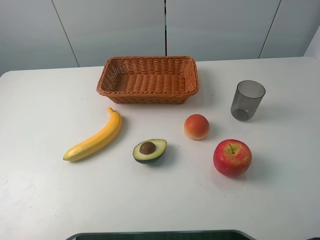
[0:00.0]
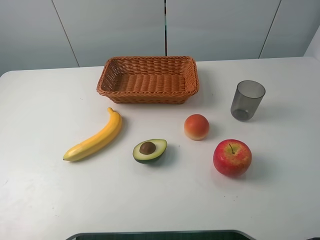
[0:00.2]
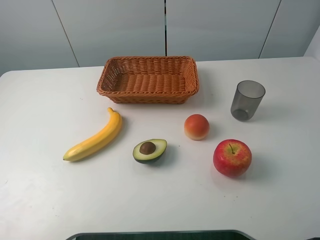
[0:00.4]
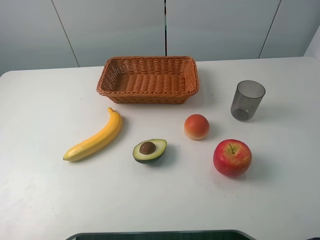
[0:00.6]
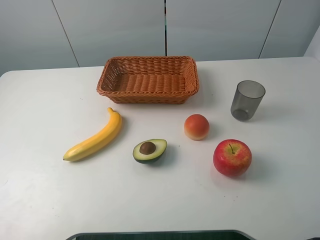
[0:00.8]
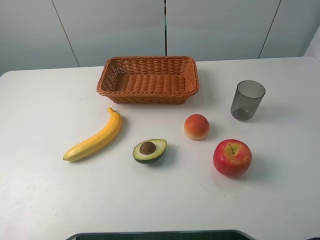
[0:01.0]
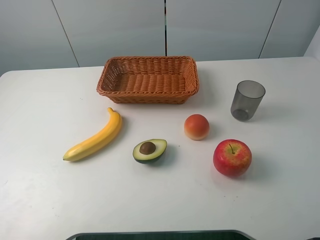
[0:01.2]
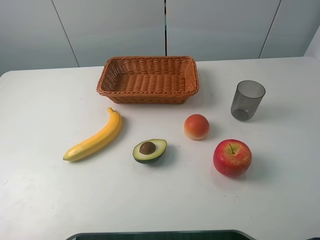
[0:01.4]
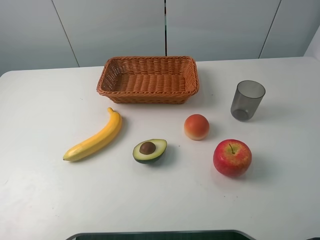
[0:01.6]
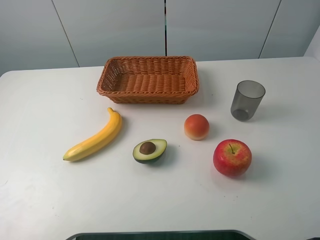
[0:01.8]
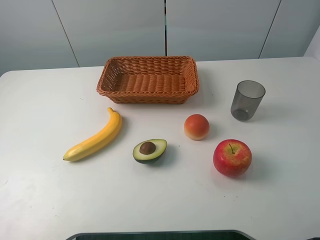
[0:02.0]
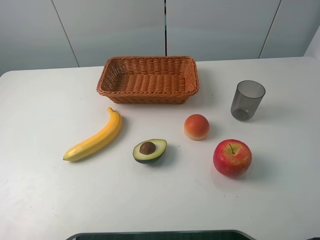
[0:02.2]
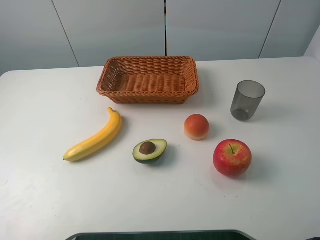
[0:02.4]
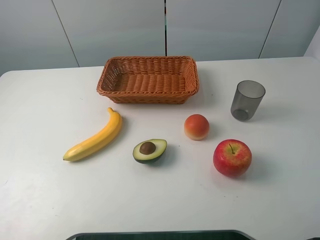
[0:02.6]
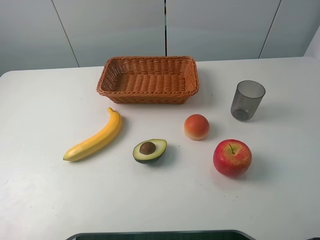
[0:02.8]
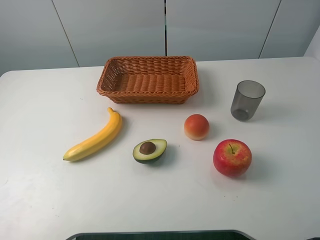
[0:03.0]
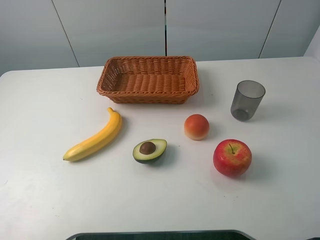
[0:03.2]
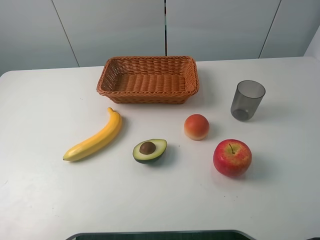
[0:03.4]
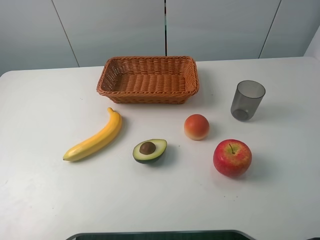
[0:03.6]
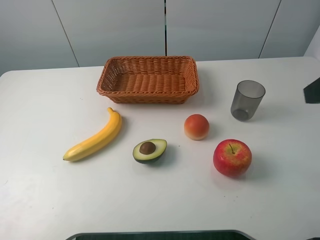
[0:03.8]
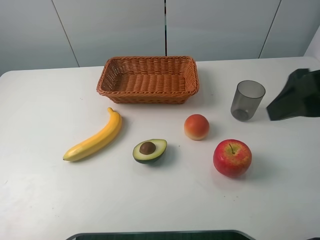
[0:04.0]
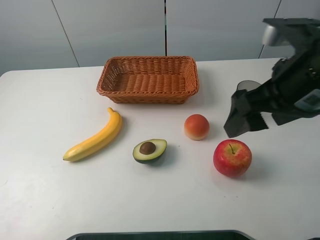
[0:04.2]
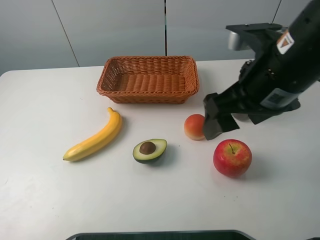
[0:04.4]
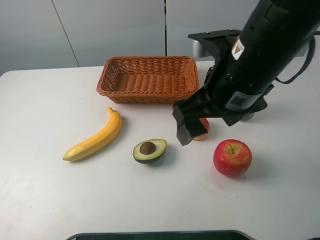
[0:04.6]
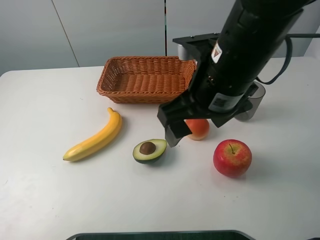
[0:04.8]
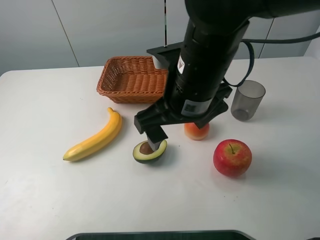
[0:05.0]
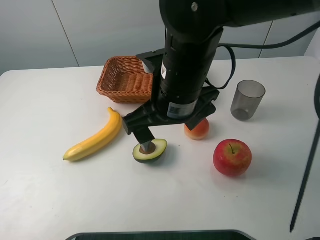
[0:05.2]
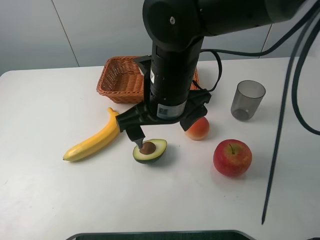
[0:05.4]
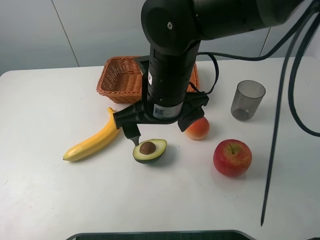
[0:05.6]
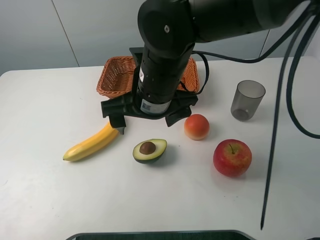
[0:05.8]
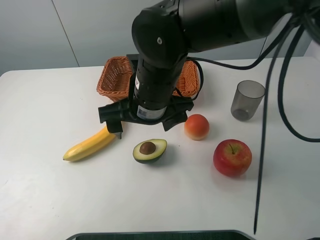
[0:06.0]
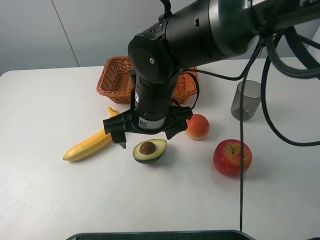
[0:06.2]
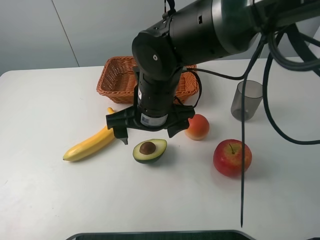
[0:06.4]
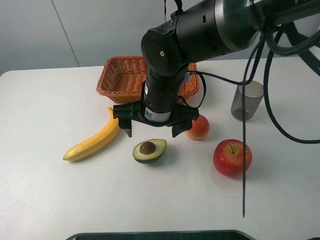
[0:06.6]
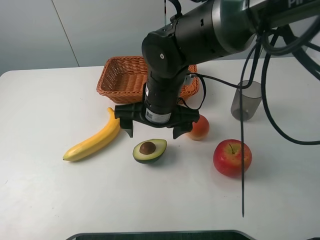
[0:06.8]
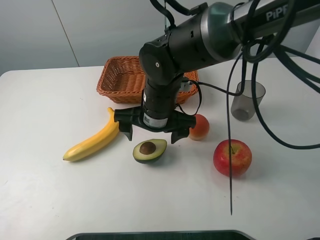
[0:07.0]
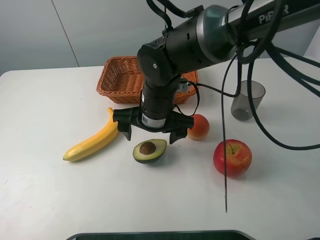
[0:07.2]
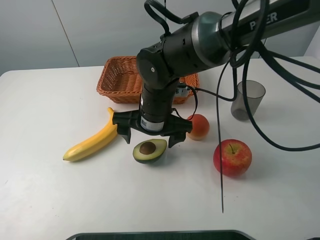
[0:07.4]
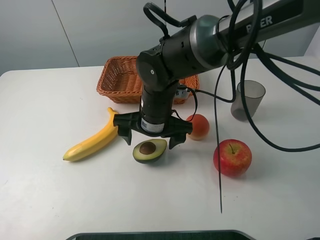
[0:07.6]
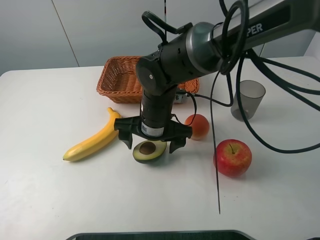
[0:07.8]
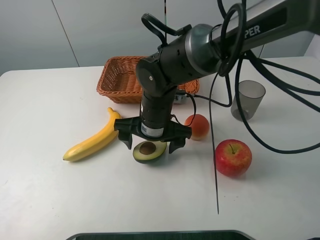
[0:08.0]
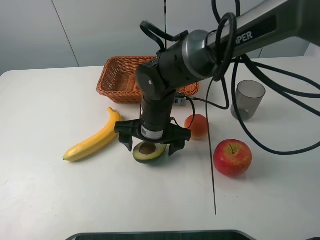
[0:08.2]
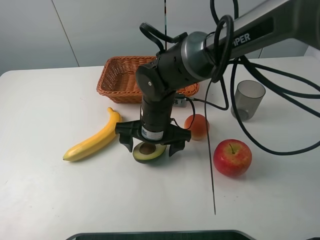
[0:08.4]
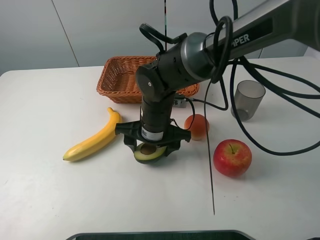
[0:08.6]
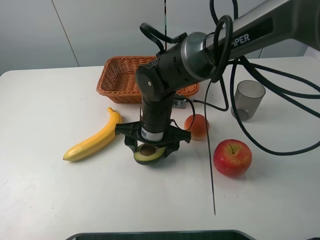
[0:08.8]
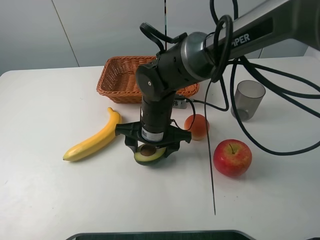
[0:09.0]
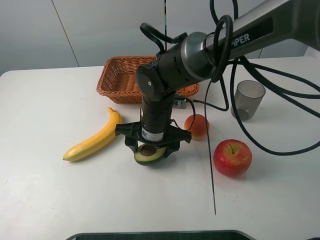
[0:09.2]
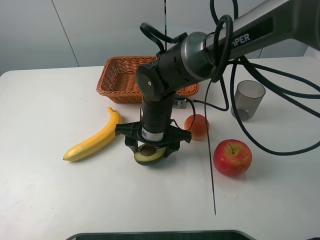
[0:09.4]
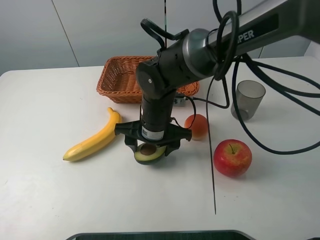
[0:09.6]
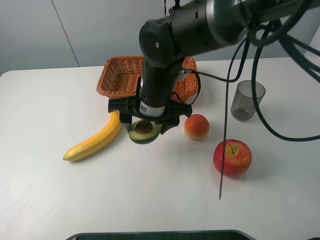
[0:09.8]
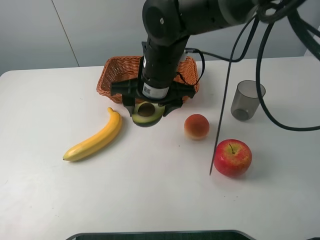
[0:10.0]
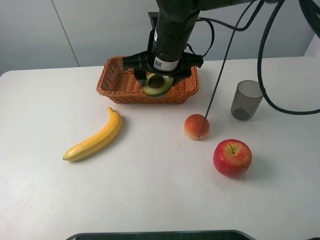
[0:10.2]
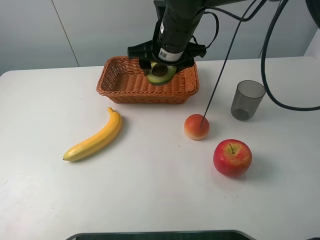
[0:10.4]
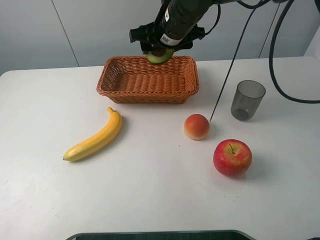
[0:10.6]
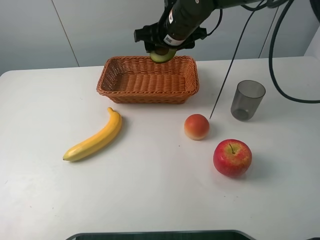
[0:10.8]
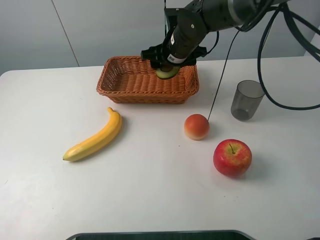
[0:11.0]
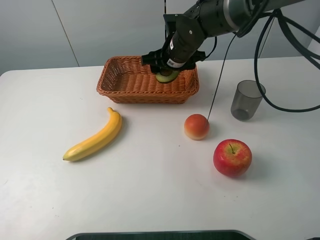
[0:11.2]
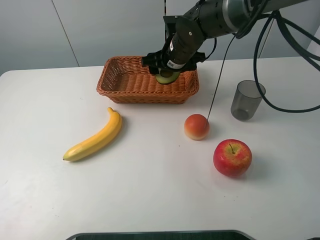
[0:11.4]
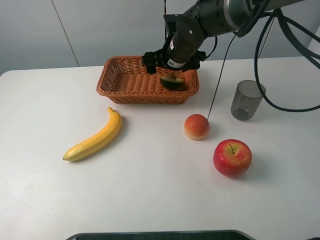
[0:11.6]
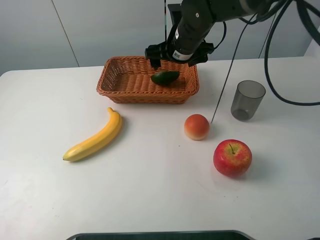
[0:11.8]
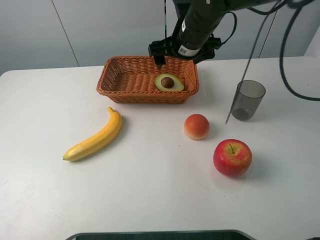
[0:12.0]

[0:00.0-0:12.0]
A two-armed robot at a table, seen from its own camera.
Task of the whole recording: randomly pick up an item from the table and put it in the basket.
Step, 0.0 to 9.0 s: Grasp the avocado with the right gripper.
Step, 9.2 to 12.0 s: Place the avocado into the basket with the right gripper.
0.0 to 1.6 s: Both grippers stay about where they are.
3.0 to 4.4 s: The right gripper moves forward, to the left and downward, about 25 cm.
4.4 to 6.0 s: The right gripper heads to the left and downward, covering approximately 15 cm.
6.0 to 7.6 s: The right gripper shifts some 5 cm downward.
7.6 to 9.0 s: The right gripper closes up.
9.0 to 10.4 s: The right gripper moves upward and forward, roughly 15 cm.
10.4 to 12.0 s: The right gripper opens up.

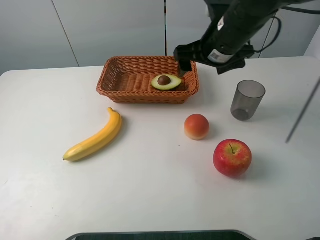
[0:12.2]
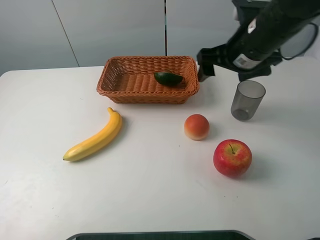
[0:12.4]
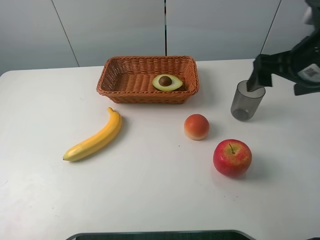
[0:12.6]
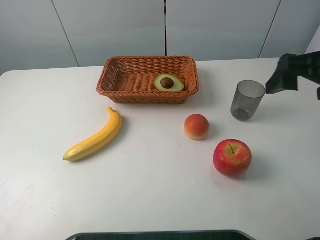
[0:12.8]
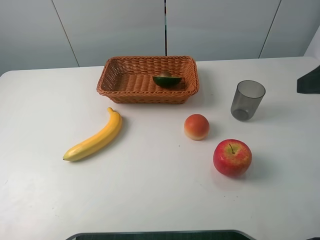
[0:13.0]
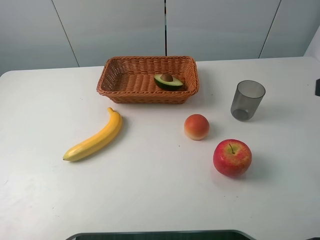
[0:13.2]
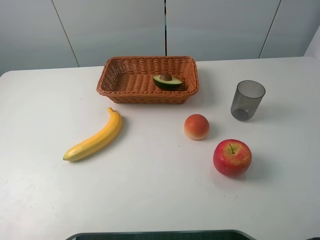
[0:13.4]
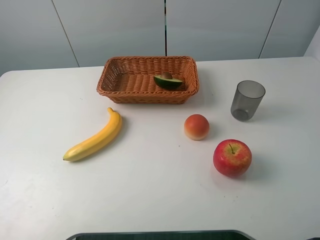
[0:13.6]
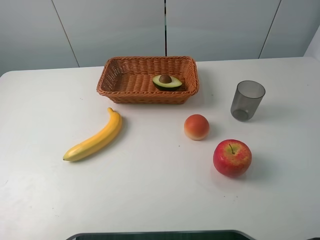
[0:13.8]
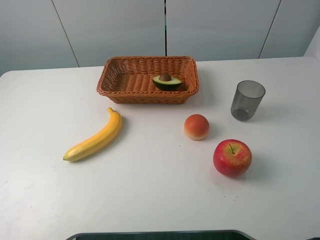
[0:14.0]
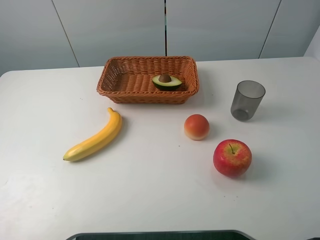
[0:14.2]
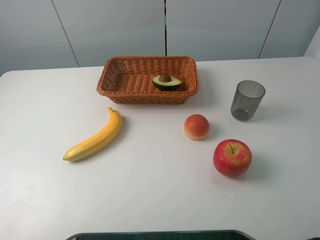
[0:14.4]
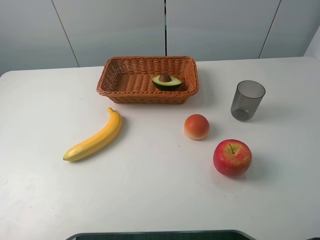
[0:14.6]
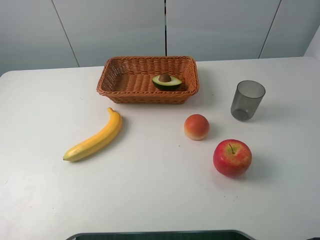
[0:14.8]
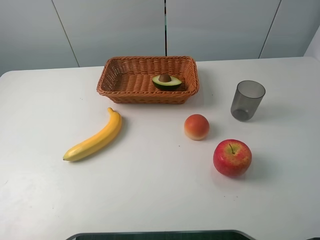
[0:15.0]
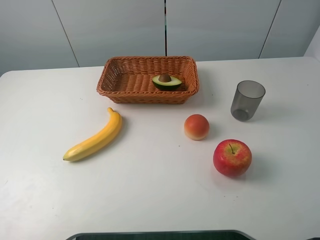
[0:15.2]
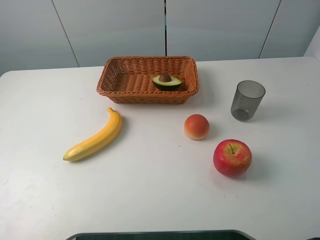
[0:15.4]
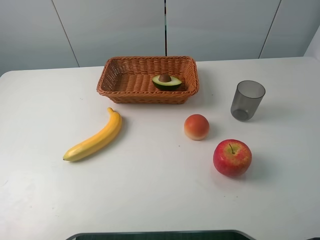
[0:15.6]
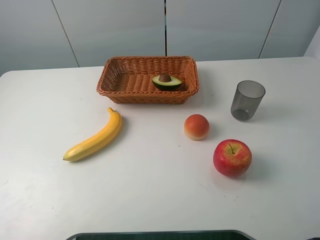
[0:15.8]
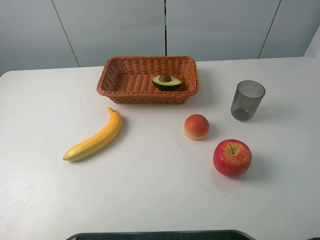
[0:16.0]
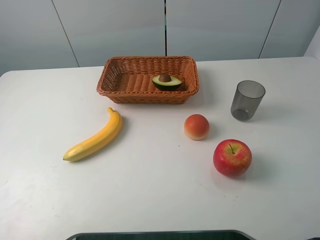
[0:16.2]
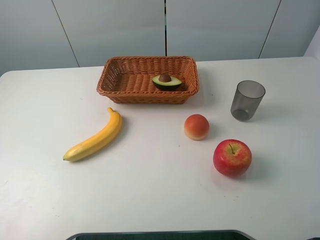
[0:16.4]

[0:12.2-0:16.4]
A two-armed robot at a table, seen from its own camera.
Task of the whole recording: randomly pick up an item from the table and put it in the basket.
12.2 to 13.6 s: The right gripper shifts some 35 cm backward and to the right.
15.0 to 16.4 s: Both grippers stay put.

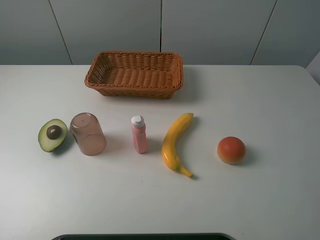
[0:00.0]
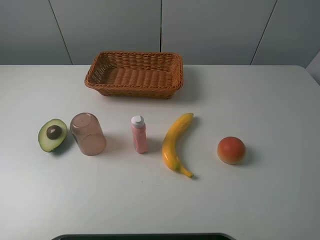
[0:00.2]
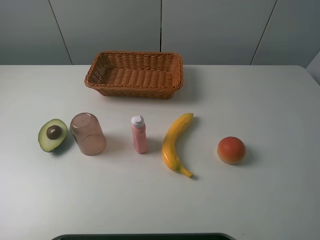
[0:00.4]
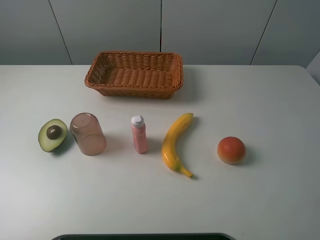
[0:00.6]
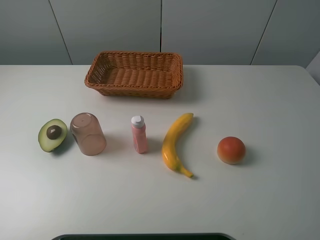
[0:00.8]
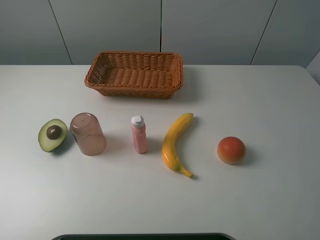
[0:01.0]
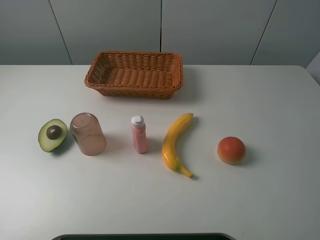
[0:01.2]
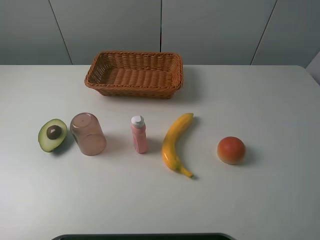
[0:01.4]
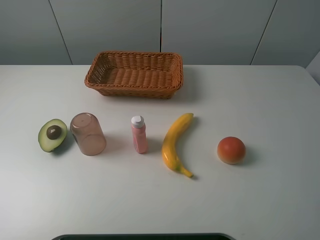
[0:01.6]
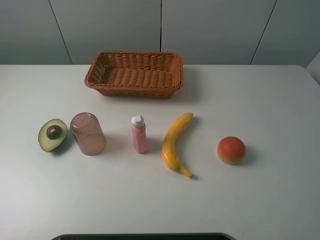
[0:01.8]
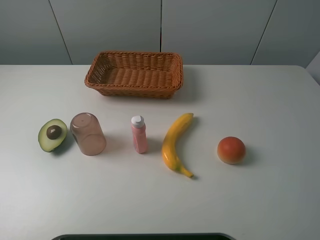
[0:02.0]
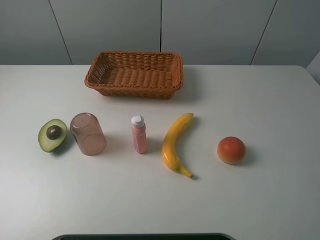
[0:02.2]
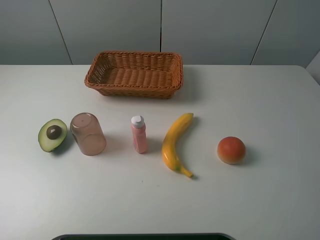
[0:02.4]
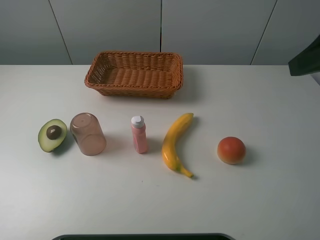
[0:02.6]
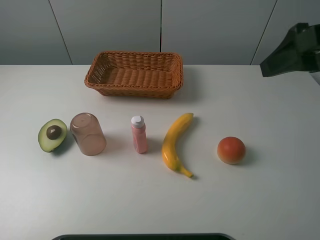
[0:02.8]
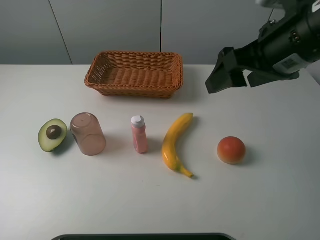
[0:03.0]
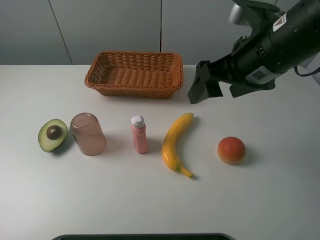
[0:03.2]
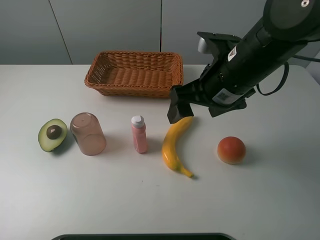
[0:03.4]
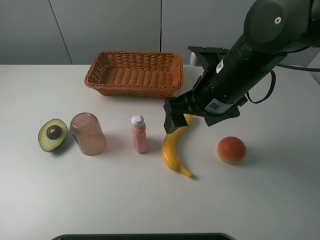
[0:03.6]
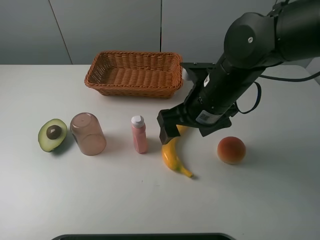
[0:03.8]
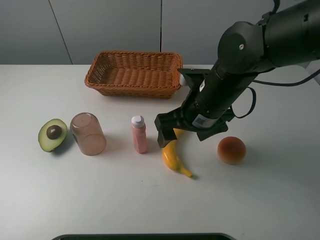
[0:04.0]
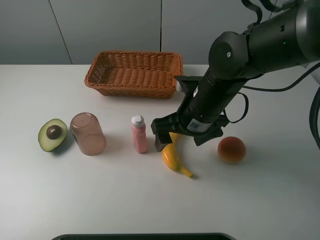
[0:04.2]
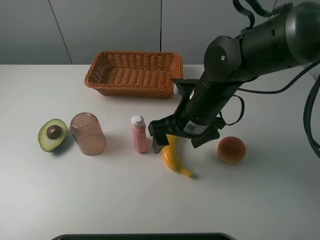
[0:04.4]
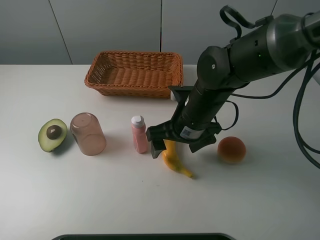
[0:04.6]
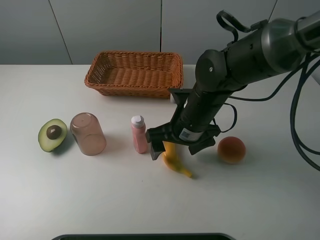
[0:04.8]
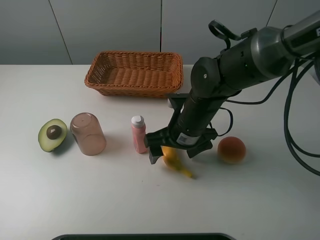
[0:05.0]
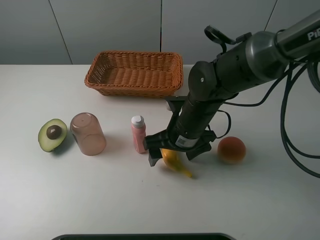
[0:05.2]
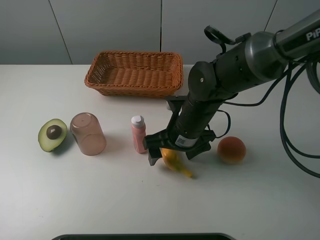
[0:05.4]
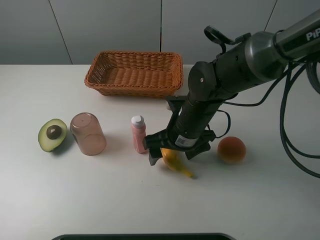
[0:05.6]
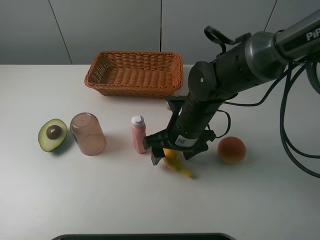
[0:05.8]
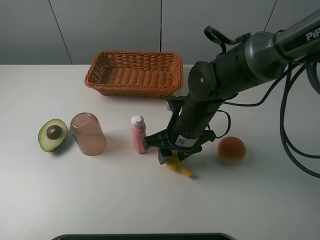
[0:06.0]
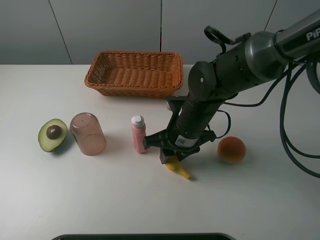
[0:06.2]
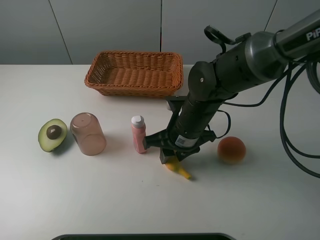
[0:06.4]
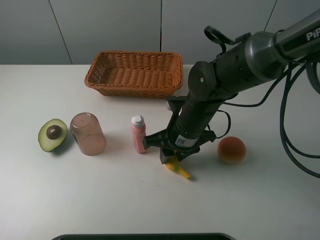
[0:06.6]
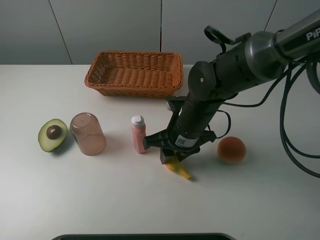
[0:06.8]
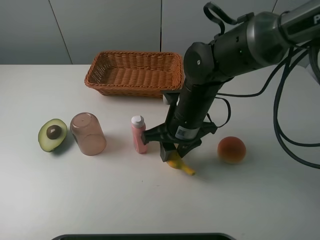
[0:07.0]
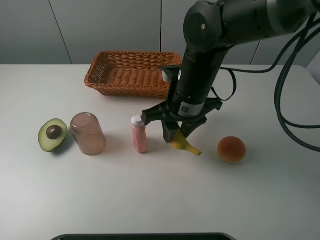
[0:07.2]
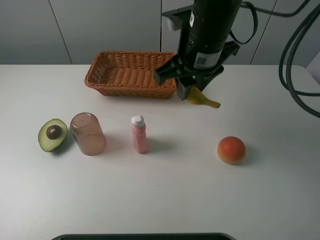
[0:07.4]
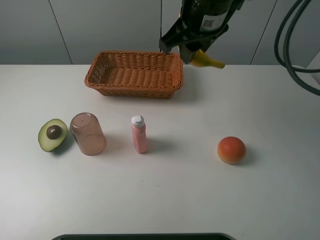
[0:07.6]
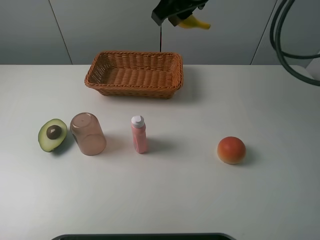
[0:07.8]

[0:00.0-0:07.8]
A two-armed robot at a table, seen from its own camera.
Task of the whole recording: randomly pick up an item from the table and put it in the basket.
Step, 0.0 to 6.0 s: Grasp the banana with the right gripper.
0.0 to 1.6 s: Both grippers stay about where they are.
1.6 to 3.2 s: The right gripper moves forward and to the left, approximately 25 cm.
3.2 to 4.6 s: The right gripper shifts about 15 cm downward and to the left.
4.6 to 6.2 s: The right gripper closes its fingers.
6.2 to 7.8 s: The right gripper shifts about 25 cm upward and forward.
